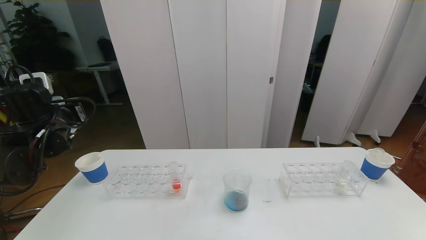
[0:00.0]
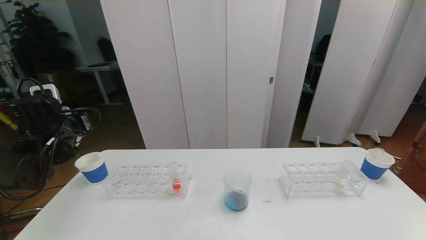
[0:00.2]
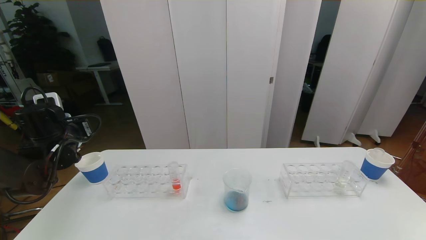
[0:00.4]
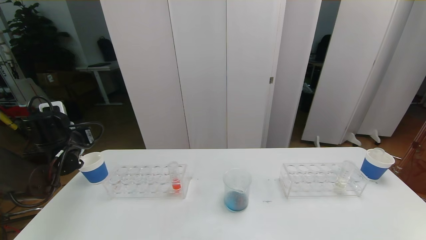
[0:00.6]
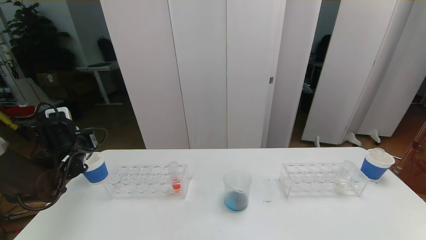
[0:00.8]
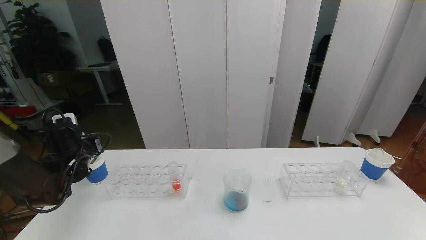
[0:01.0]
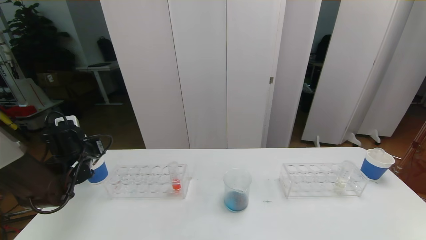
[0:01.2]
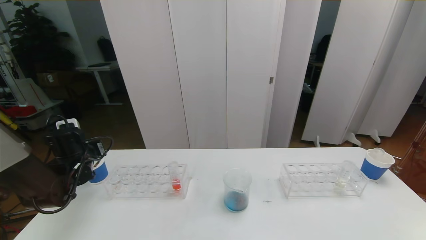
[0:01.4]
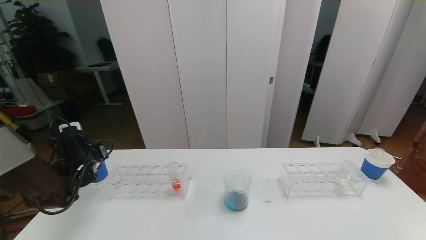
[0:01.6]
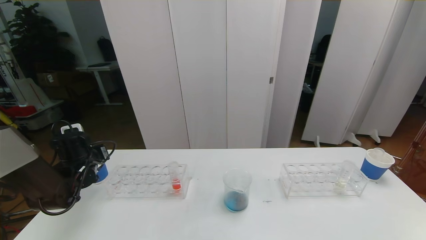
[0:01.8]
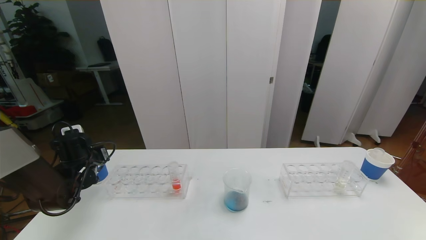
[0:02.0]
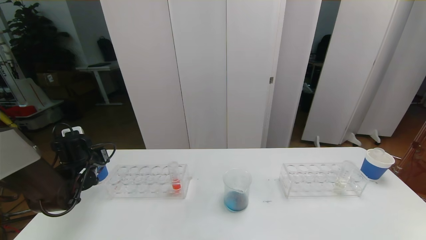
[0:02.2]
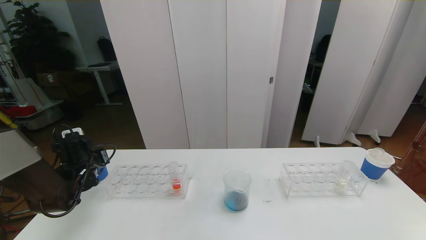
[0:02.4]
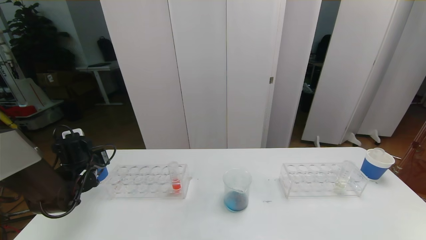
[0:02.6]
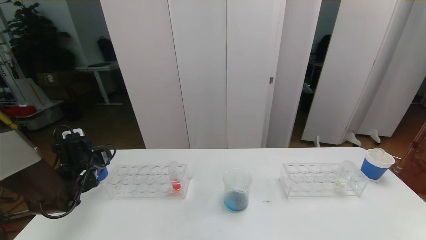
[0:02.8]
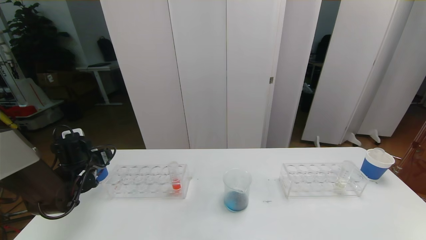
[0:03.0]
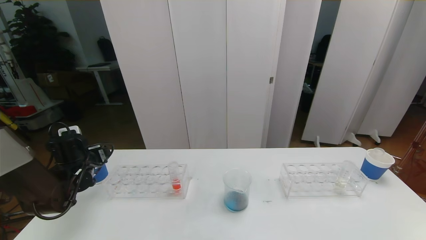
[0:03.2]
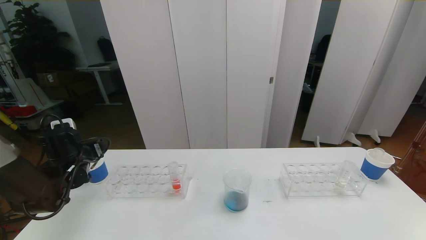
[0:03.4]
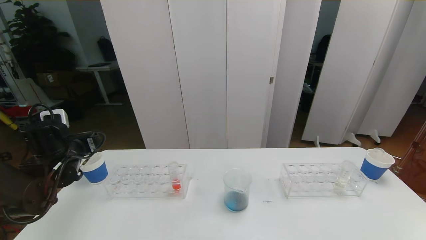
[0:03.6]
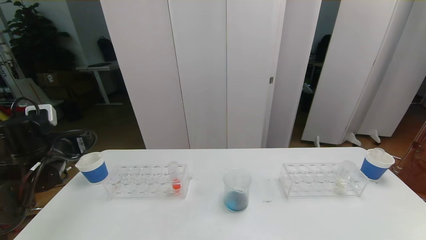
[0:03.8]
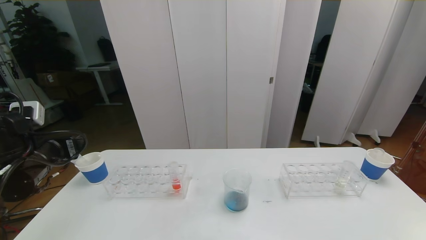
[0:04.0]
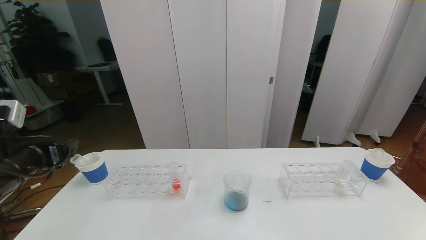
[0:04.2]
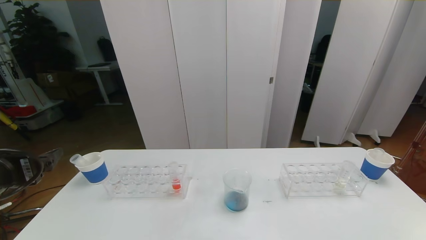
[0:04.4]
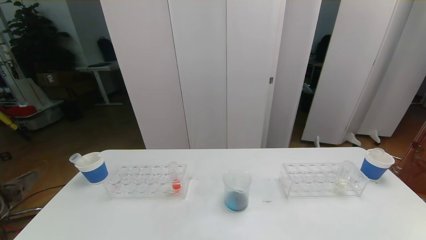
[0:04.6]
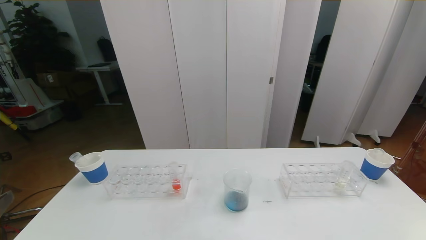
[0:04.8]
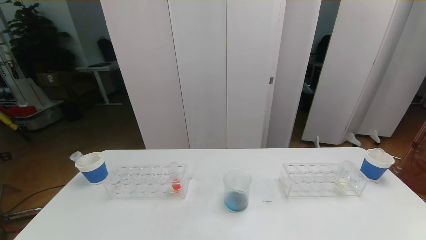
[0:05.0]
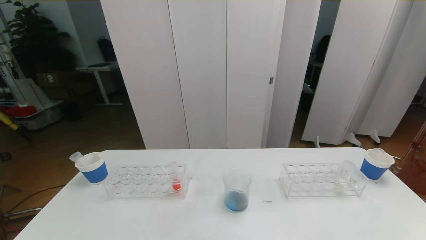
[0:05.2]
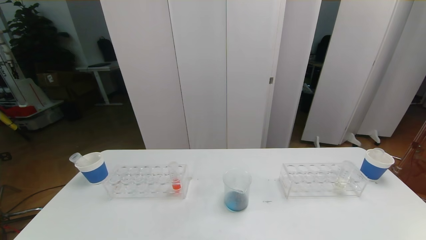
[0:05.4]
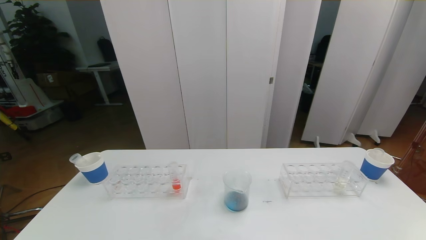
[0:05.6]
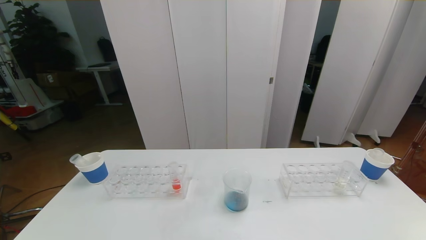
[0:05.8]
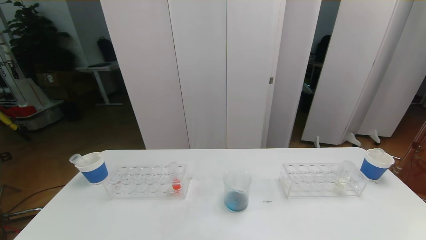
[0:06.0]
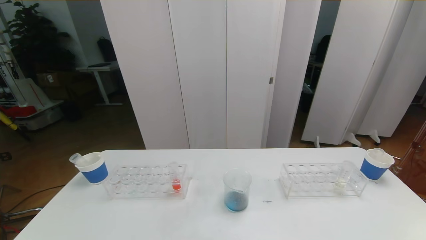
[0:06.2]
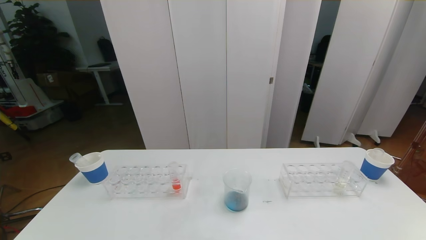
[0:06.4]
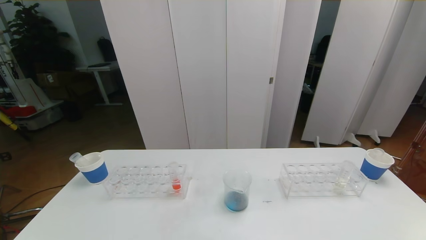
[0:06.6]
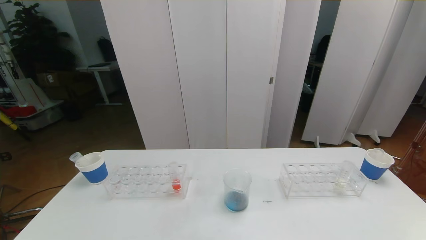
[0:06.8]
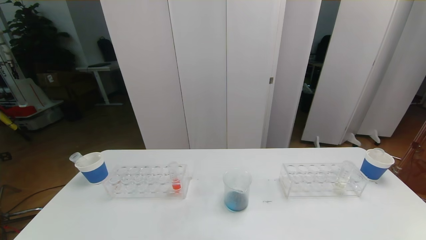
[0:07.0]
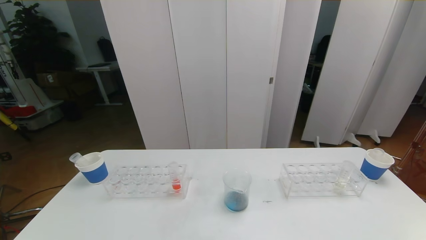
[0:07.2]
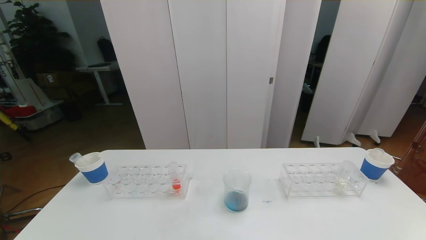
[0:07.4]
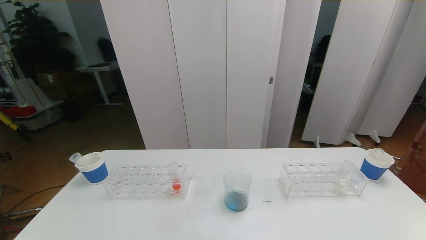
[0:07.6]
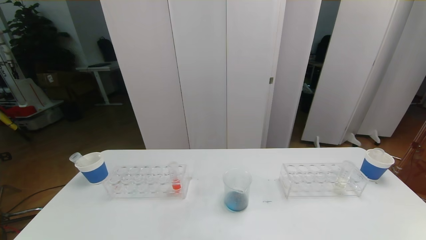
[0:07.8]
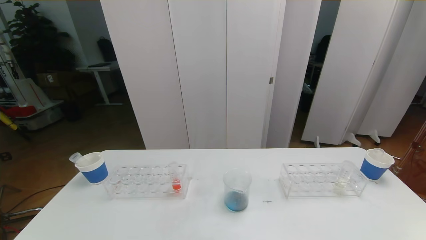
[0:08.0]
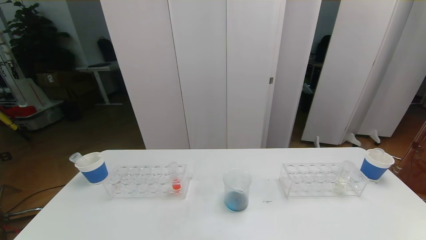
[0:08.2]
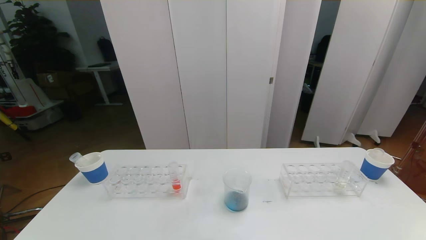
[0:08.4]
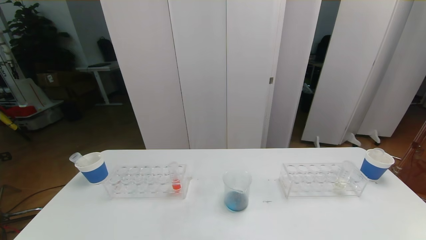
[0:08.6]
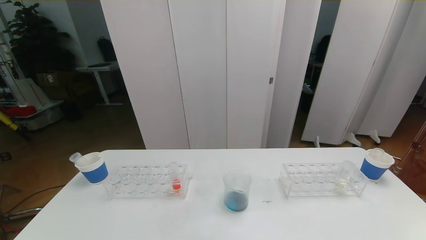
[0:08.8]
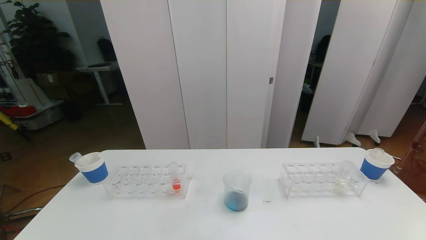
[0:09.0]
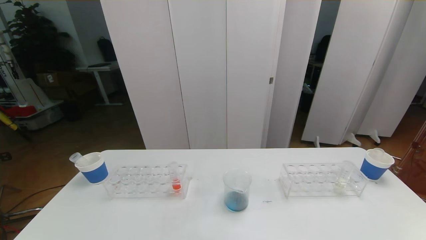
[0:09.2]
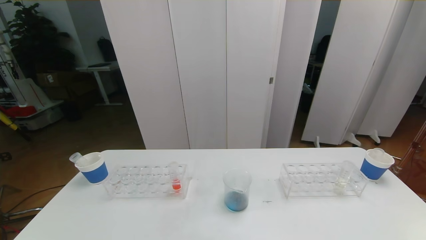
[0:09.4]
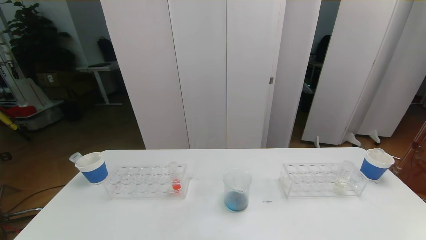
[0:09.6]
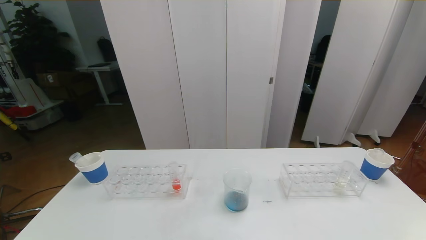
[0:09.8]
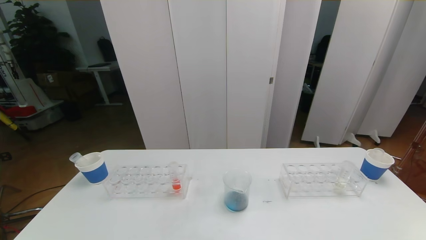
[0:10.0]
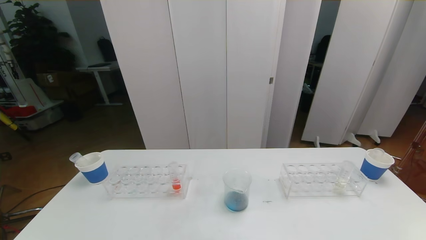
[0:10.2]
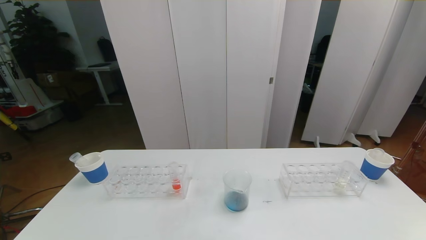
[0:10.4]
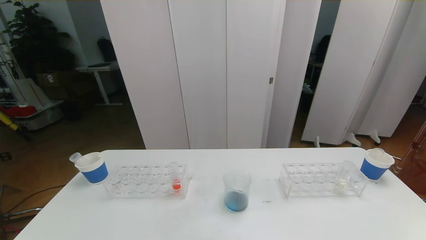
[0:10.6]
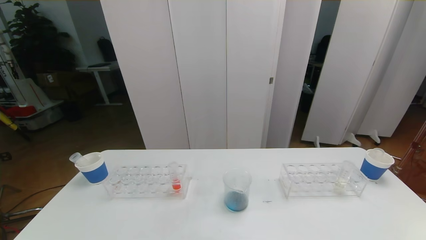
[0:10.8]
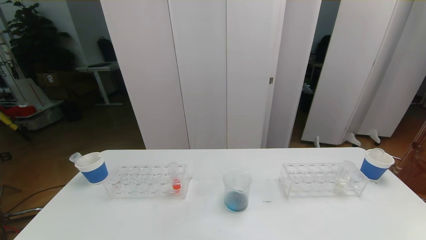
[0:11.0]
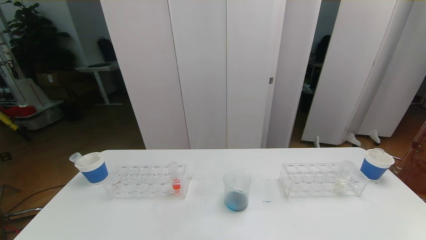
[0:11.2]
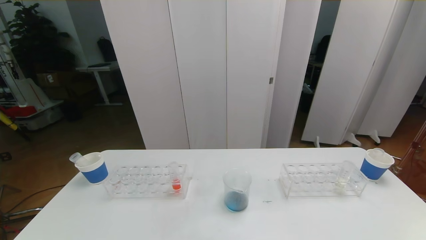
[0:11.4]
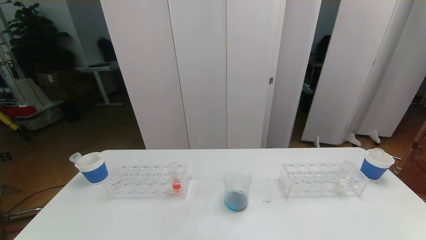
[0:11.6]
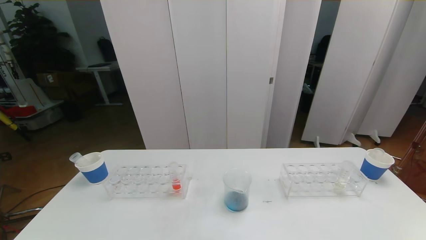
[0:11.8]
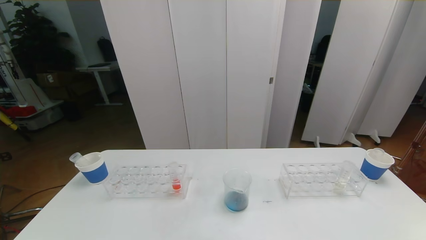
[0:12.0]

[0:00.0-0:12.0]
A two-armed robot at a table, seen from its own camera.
Task of the whole recording: pick up the test tube with red pigment the test tube with blue pigment and the test tube with white pigment by grippers and pour them into the beaker.
Step, 0:00.0 to 0:08.4: Pour the blue reagent into the graduated cylinder and place the test tube into the paper cup.
0:00.0 to 0:01.6: The left gripper travels downward by roughly 10 cm.
0:01.6 to 0:03.0: The left gripper opens up.
0:03.0 to 0:04.4: The left gripper heads backward and upward, covering some 25 cm.
0:07.6 to 0:10.4: Neither gripper changes place.

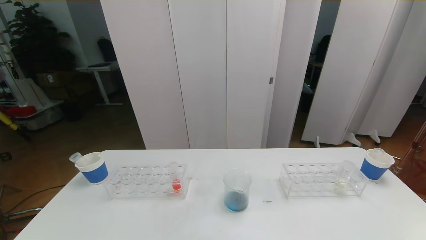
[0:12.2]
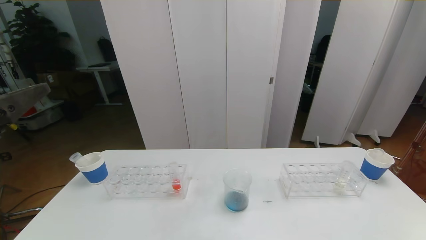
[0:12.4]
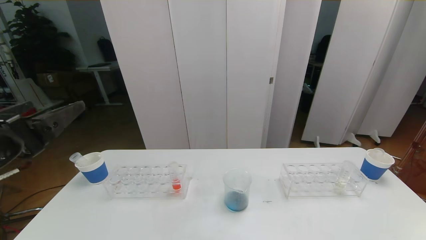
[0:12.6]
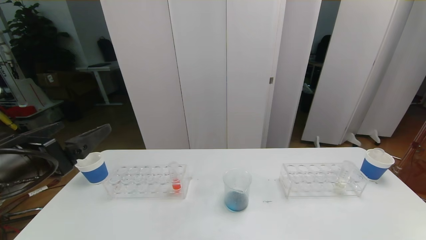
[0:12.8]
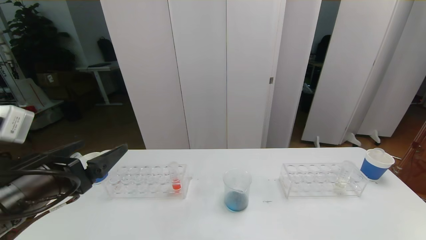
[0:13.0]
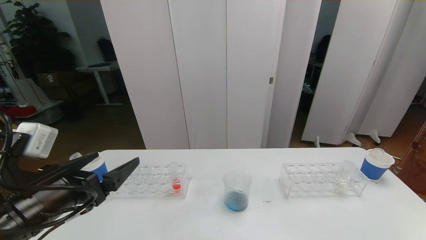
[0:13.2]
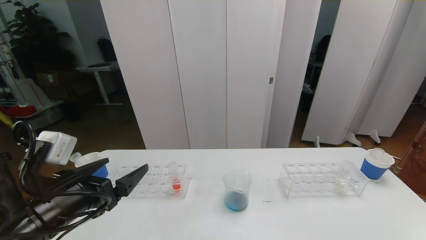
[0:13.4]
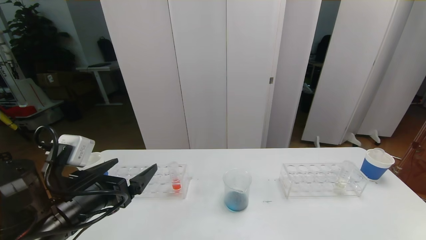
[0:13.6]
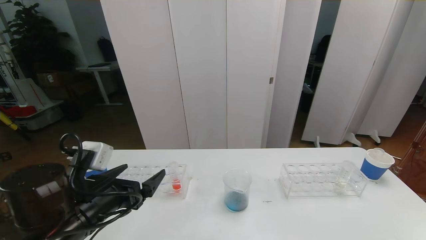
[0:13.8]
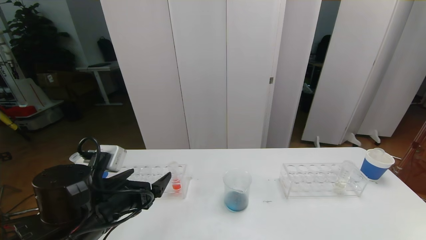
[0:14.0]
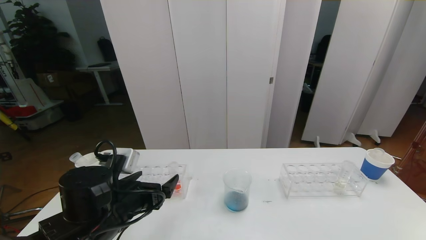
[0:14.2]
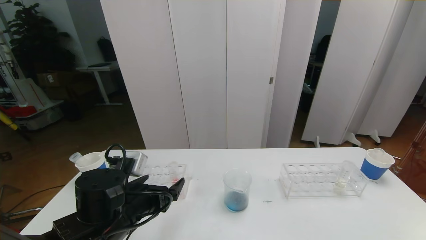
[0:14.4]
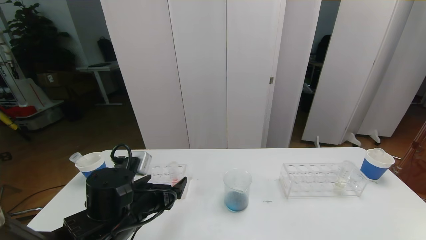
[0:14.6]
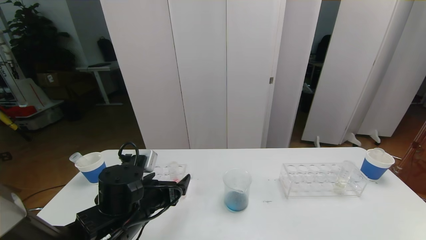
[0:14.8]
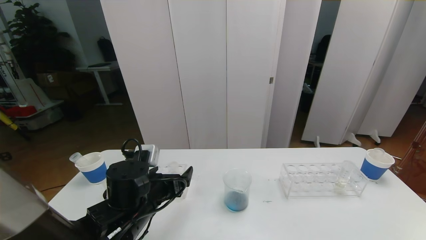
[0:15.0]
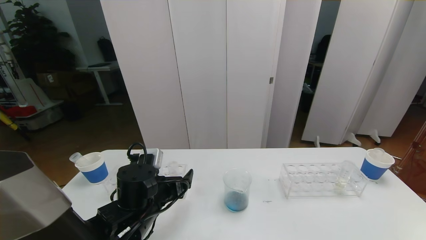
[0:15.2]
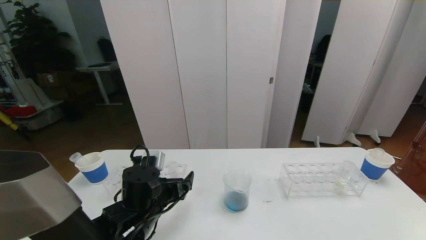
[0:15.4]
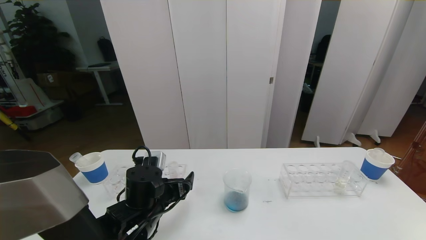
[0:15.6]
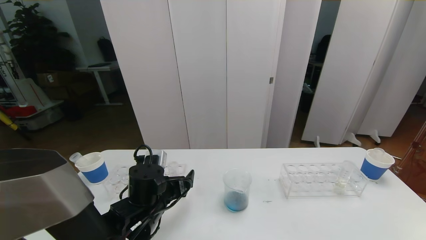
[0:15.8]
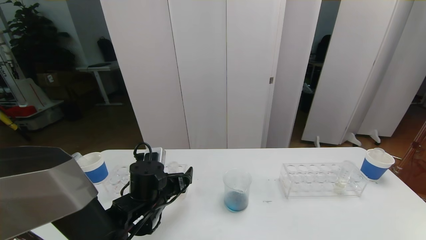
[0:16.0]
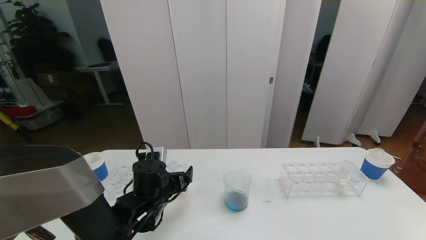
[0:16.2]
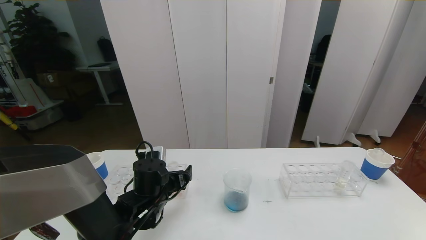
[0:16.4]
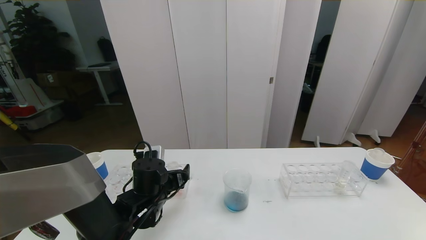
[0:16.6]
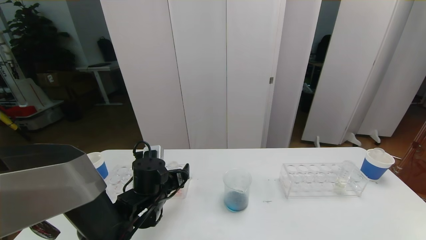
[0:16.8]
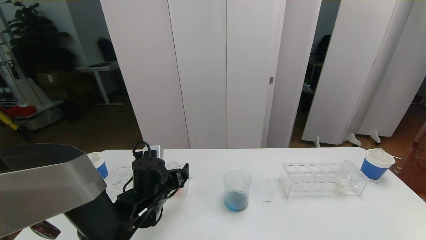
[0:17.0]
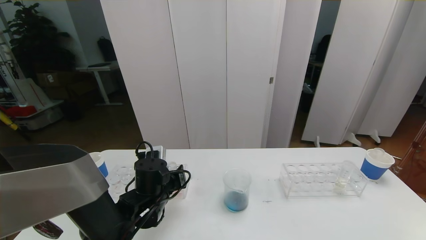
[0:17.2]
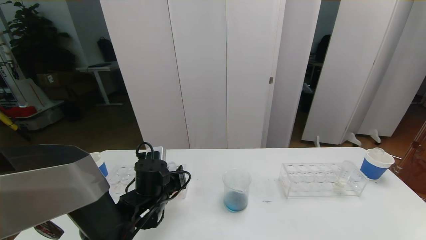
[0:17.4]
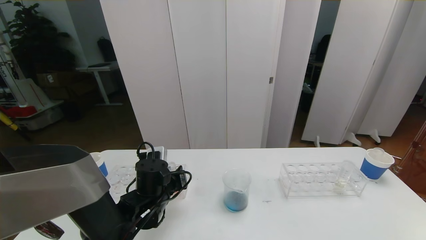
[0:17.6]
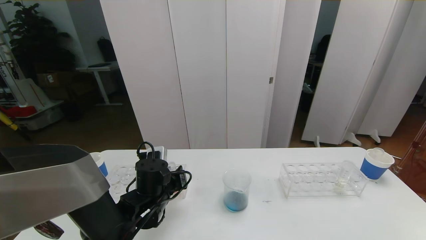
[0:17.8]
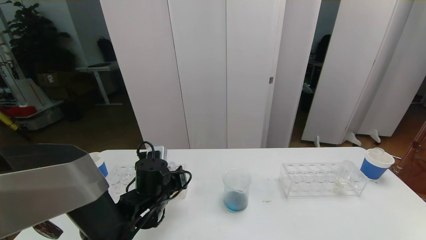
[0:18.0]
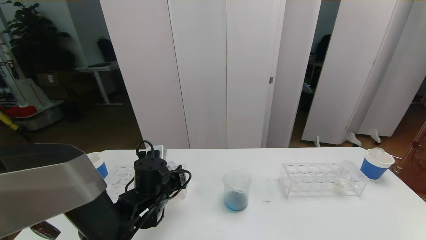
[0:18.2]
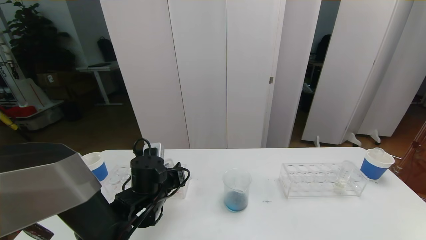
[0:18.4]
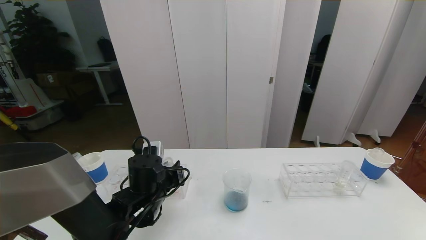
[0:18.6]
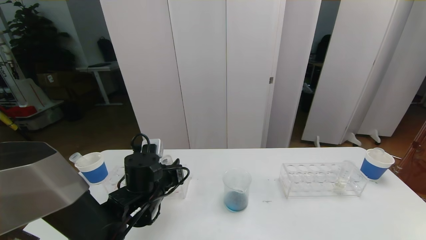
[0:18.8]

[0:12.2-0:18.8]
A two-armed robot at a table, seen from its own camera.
Task of the whole recording: pick up the test tube with red pigment the test tube with blue pigment and the test tube with white pigment by grippers and pour them into the beaker.
0:12.2 to 0:13.8: The left gripper travels downward, forward and to the right by approximately 20 cm.
0:13.8 to 0:15.4: The left gripper shifts approximately 10 cm downward, to the right and forward.
0:15.4 to 0:17.2: The left gripper closes its fingers.
0:17.2 to 0:18.8: The grippers stay close to where they were, moving slightly.
